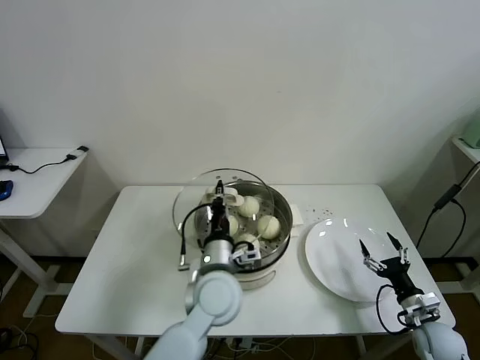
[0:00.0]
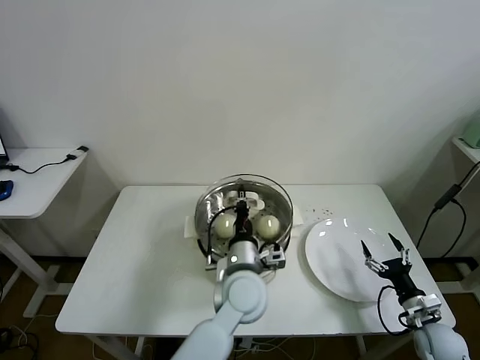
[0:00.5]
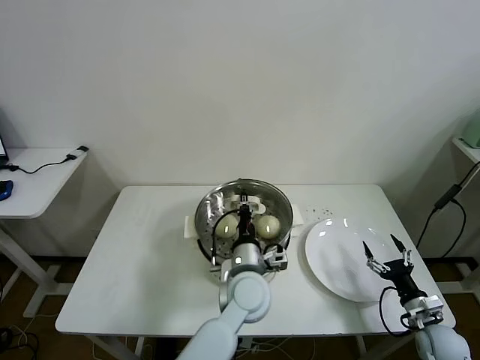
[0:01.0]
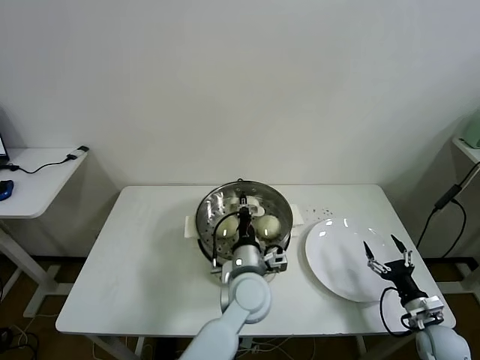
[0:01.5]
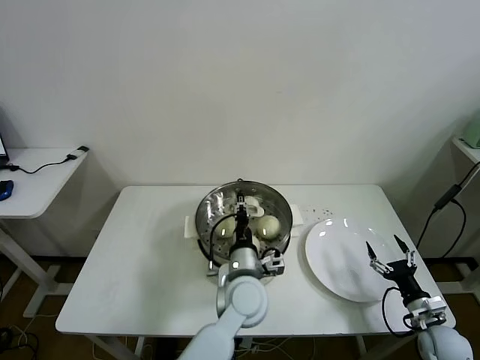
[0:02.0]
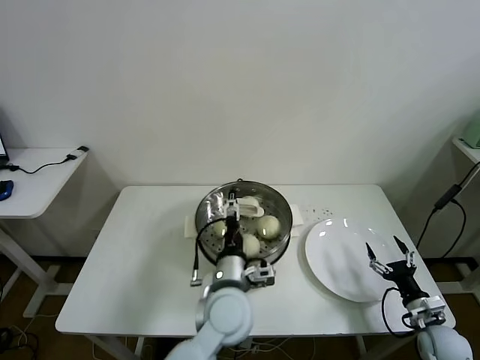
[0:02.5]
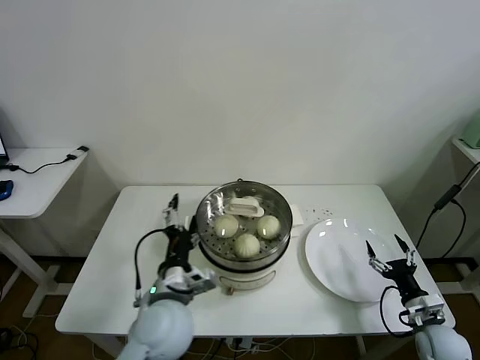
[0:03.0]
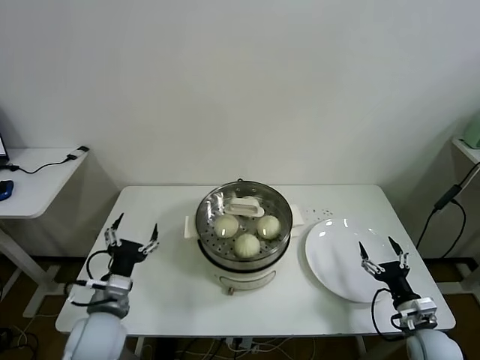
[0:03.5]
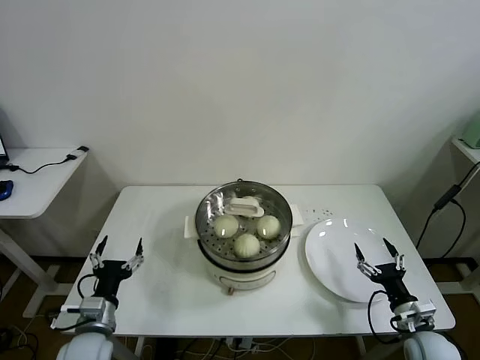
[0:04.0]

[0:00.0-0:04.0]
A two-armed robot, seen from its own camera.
Task of the whole recording: take steamed baozi put them in steamer then cover it.
Step, 0:00.0 to 0:02.0: Place the pot lid on the steamer with left gripper.
0:00.0 to 0:02.0: The left gripper heads to the right, covering approximately 5 cm.
0:02.0 to 0:04.0: The left gripper heads to the left, covering approximately 30 cm, and opens. The right gripper goes some 5 cm to the left.
